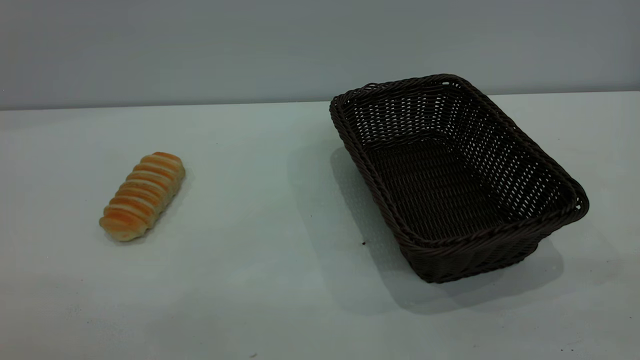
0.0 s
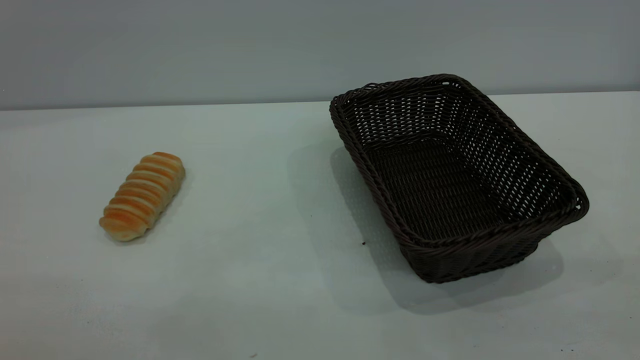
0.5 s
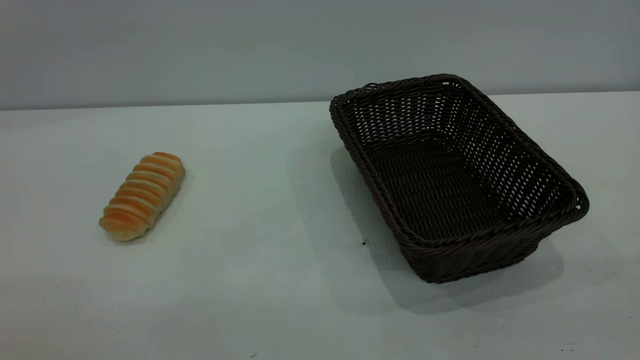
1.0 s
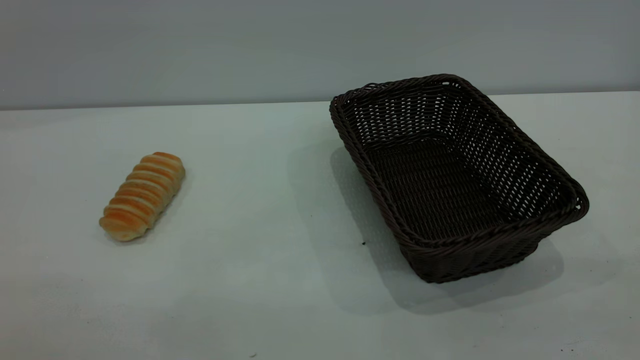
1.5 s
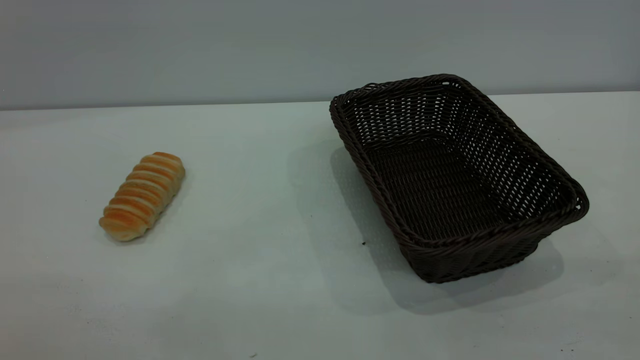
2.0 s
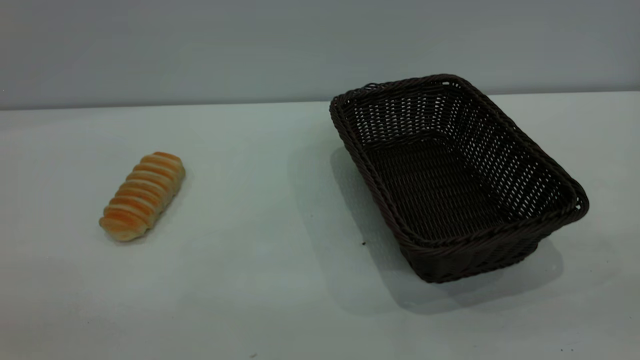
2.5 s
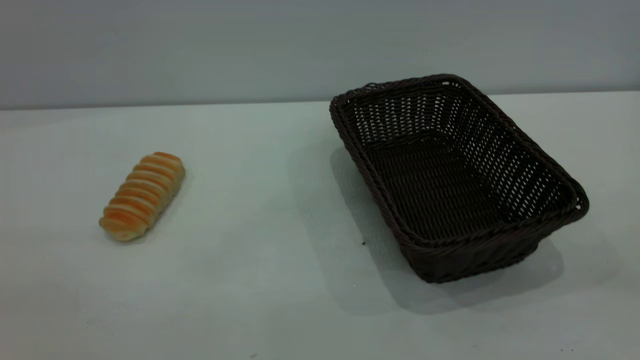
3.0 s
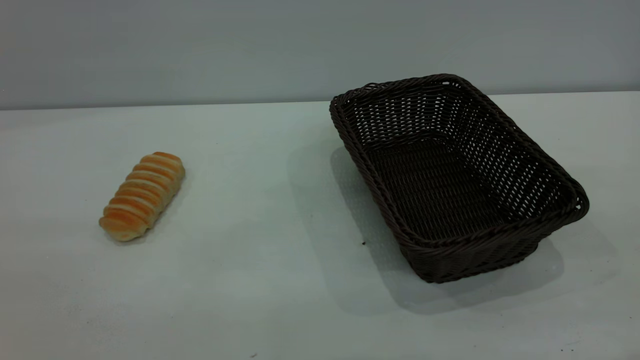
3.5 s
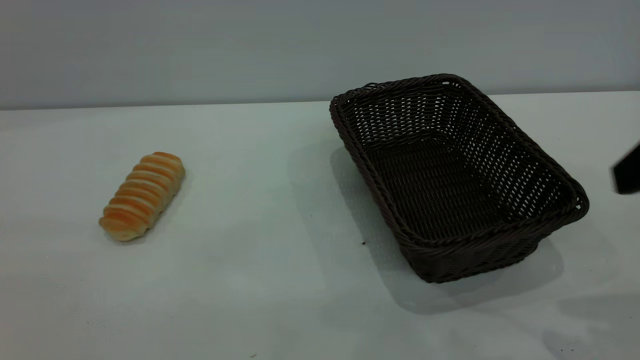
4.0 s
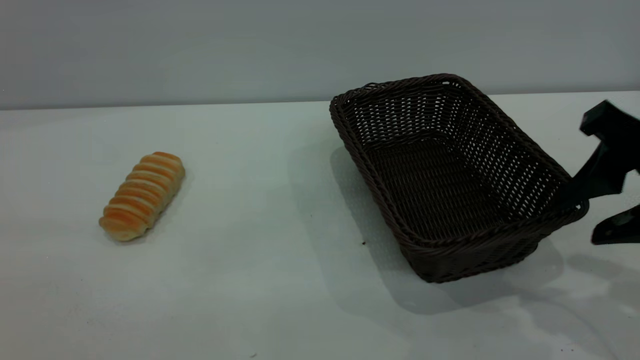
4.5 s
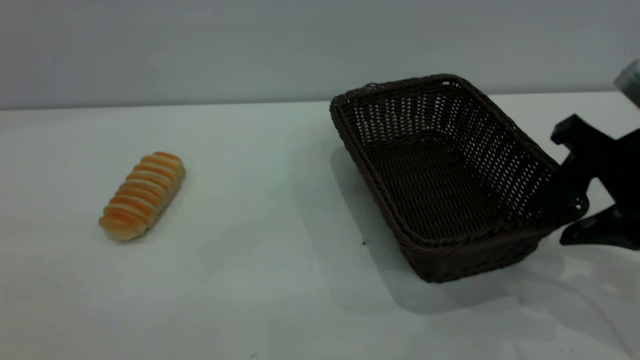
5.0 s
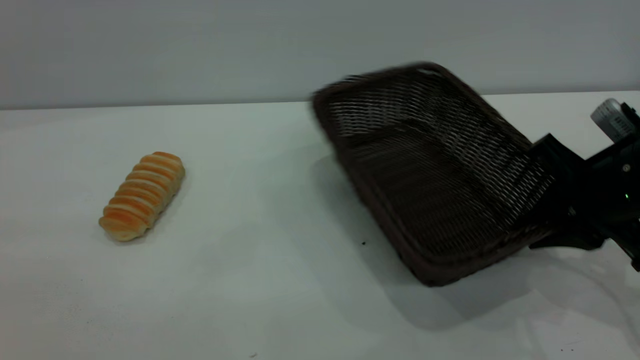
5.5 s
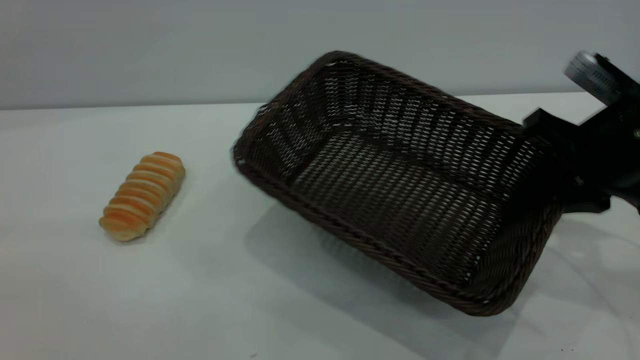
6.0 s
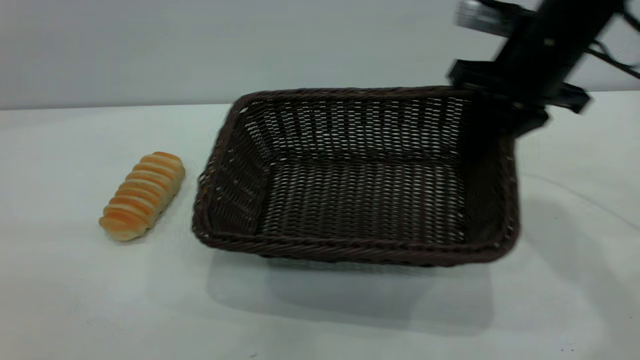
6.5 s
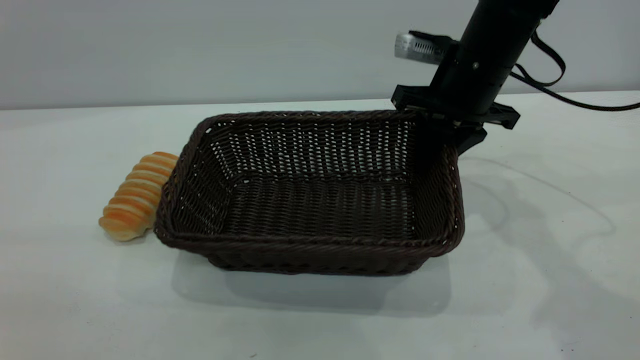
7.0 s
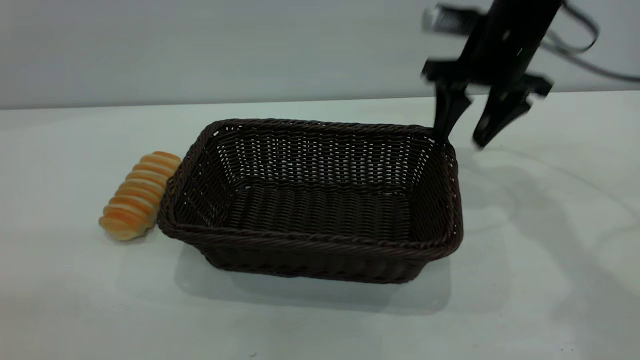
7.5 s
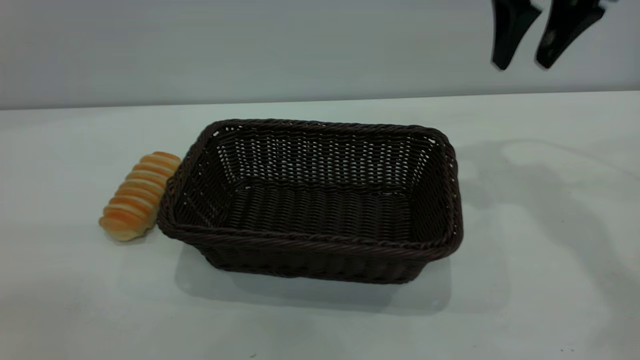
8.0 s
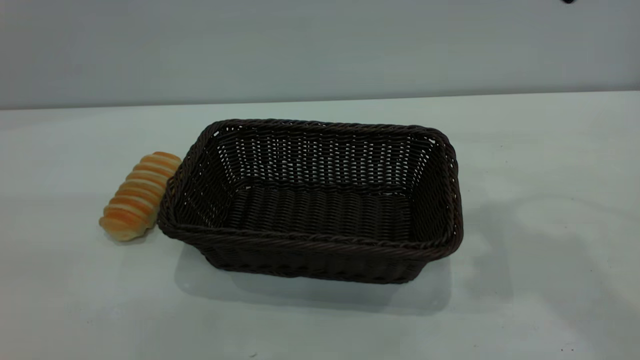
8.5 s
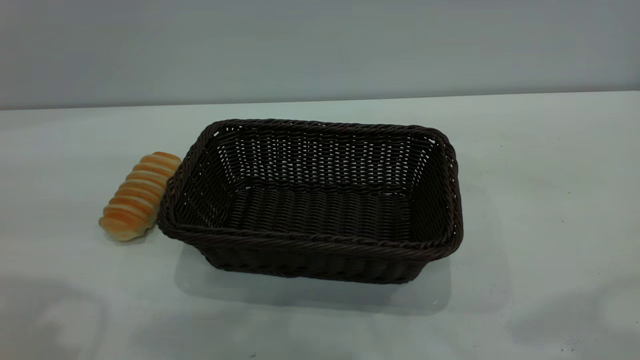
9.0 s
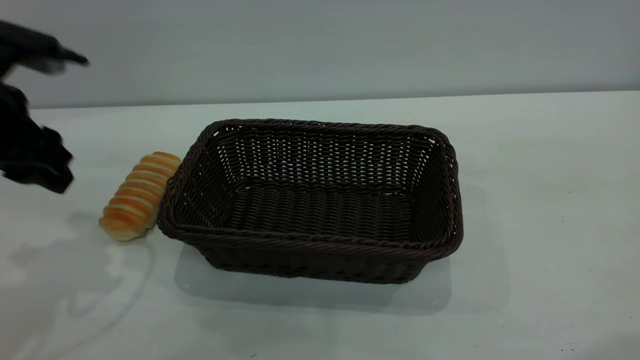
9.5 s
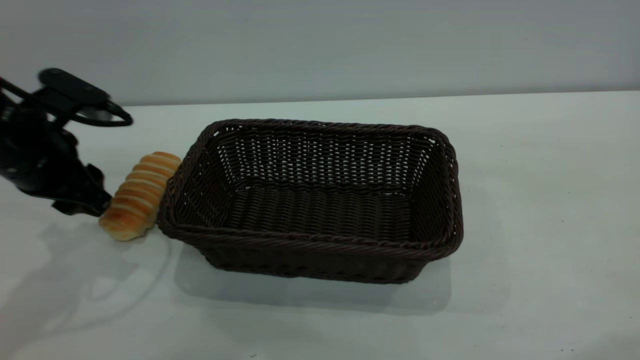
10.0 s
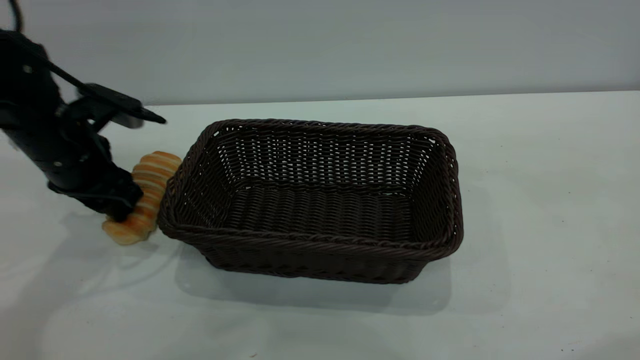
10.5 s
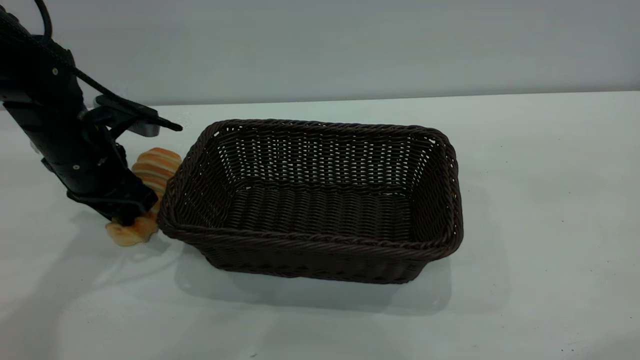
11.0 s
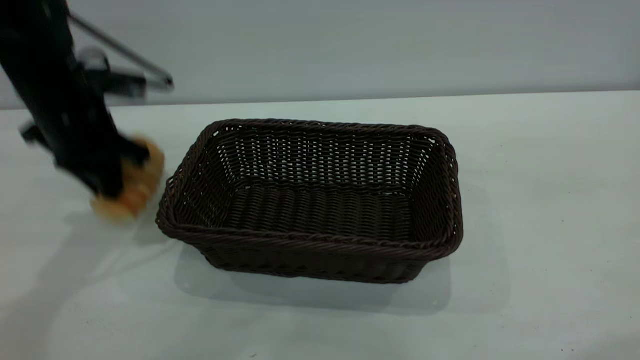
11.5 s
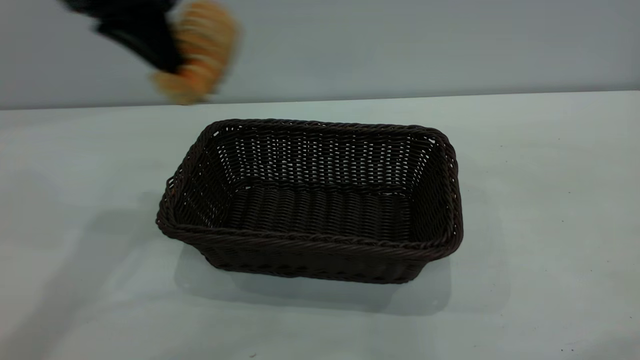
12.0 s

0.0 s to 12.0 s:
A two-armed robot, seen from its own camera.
Task of the whole recording: One hand grasps the black basket and places it in the middle of the table, while the other hand picks up the long bread and puts it into the black basket.
Step, 0.0 to 7.5 s: Move the basket to the center of view.
0.0 to 2.0 s: Both grippers stay put.
4.0 to 6.0 s: The right gripper heads forward and downward, covering approximately 15 cm, and closes its fingers.
6.0 to 8.0 s: The right gripper is displaced upward and forward by about 20 cm, and opens up.
8.0 to 10.0 s: The right gripper shifts approximately 35 cm backward and upward, while the left gripper shifts approximately 35 cm forward and downward.
10.0 to 12.0 s: The left gripper moves upward and to the right, about 20 cm, and closes.

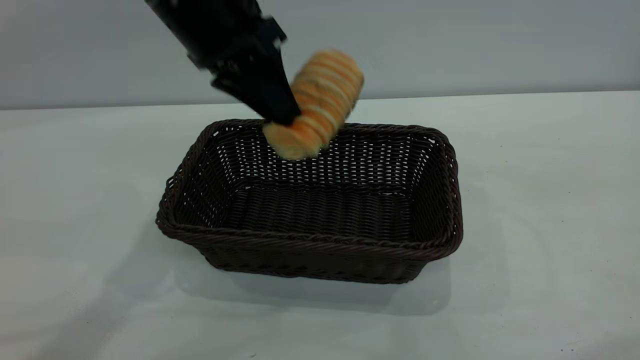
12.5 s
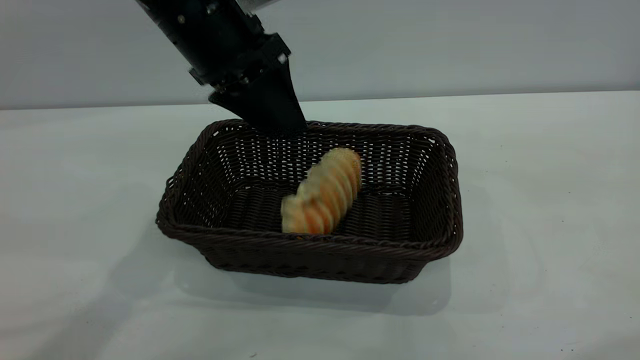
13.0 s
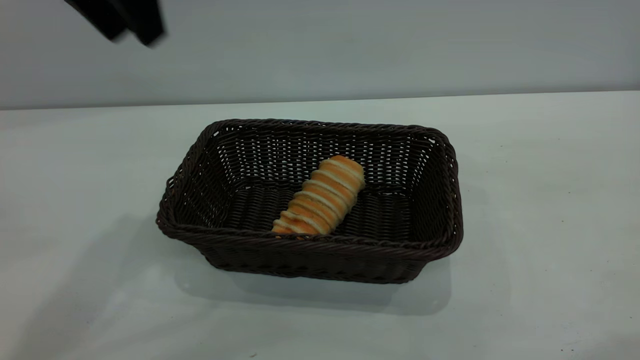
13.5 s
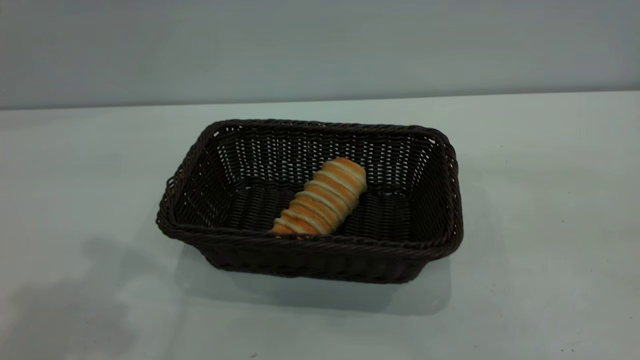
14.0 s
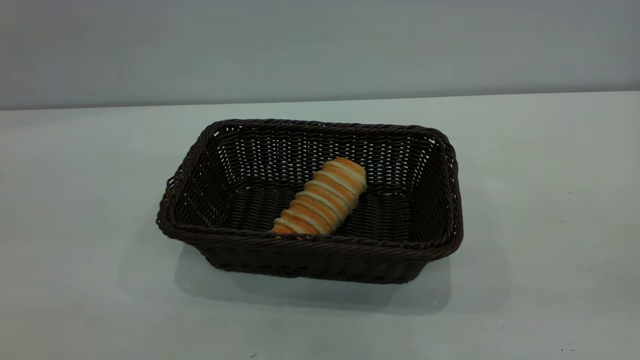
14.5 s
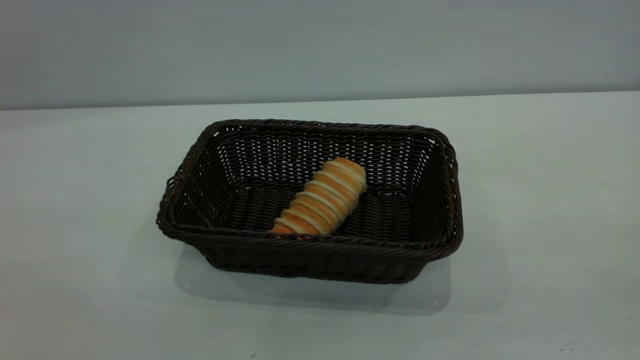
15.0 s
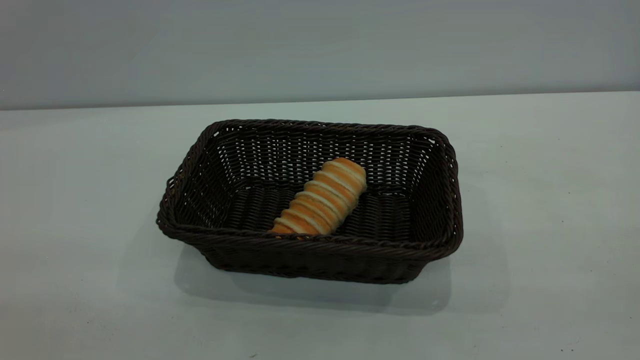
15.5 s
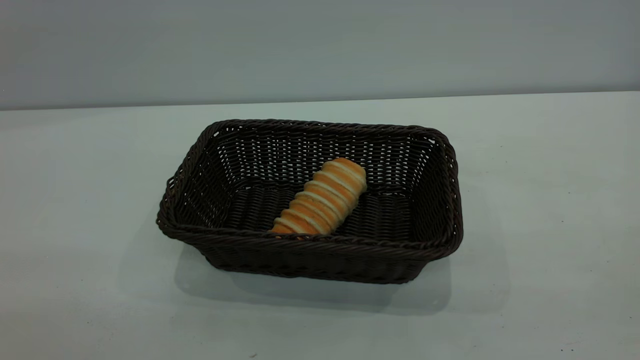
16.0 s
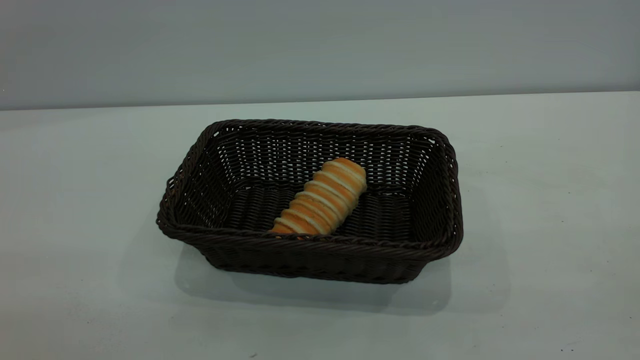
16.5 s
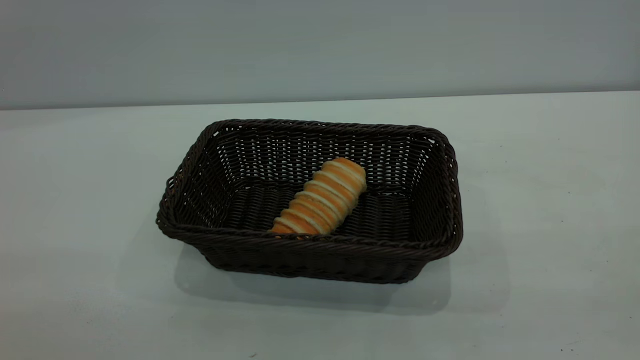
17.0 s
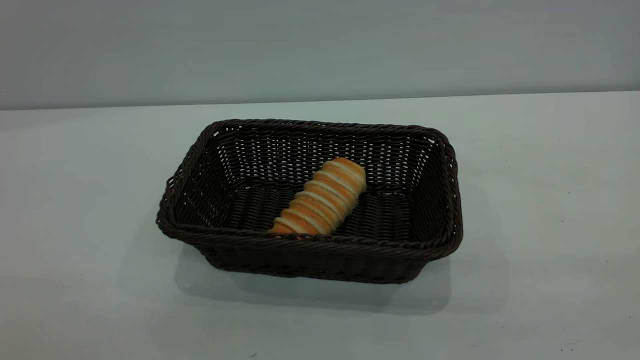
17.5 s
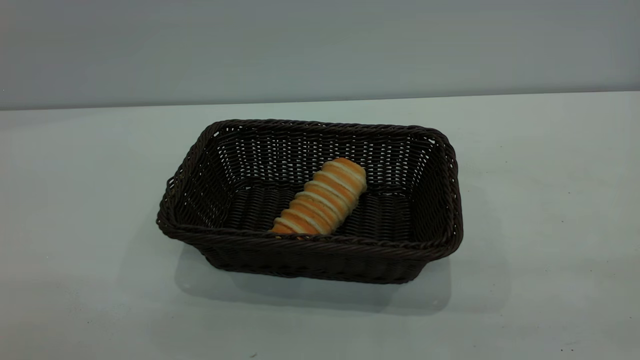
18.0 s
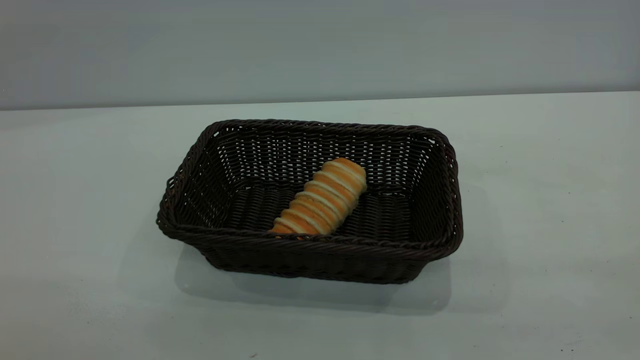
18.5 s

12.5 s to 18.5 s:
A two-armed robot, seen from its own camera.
Task of the whole recording: One hand grasps the black basket and places it in the middle of the table, while the other hand picks up the long bread and puts it into the black basket.
12.5 to 14.5 s: The right gripper heads backward and downward, covering roughly 10 cm; the left gripper heads backward, to the left and upward, covering approximately 35 cm, and opens its fingers.
